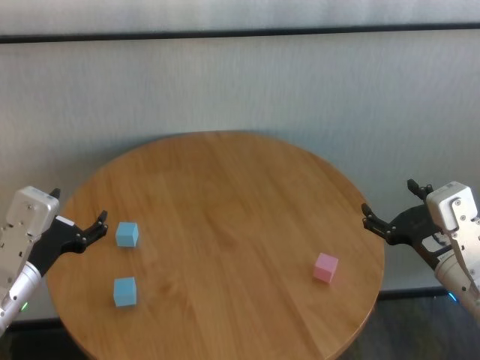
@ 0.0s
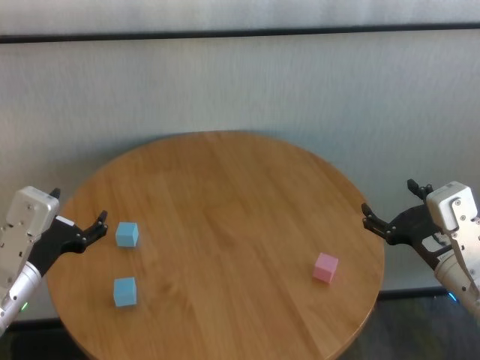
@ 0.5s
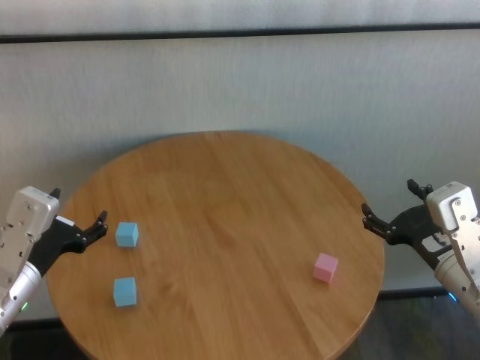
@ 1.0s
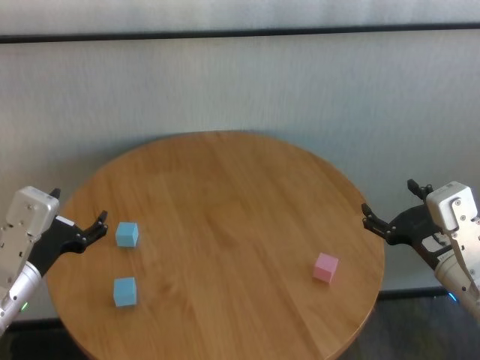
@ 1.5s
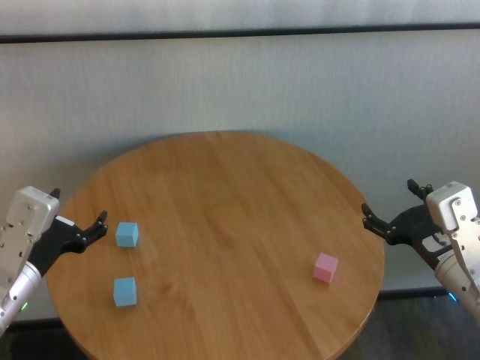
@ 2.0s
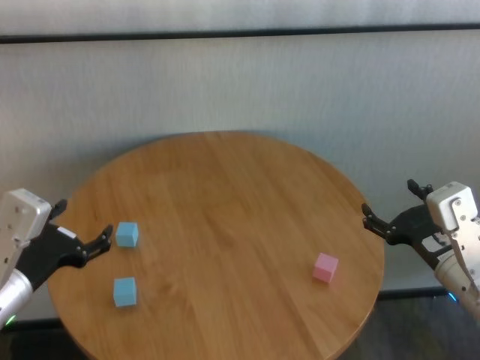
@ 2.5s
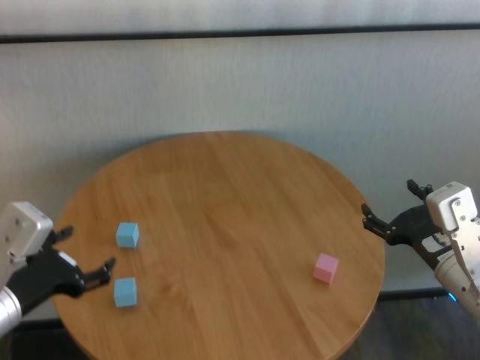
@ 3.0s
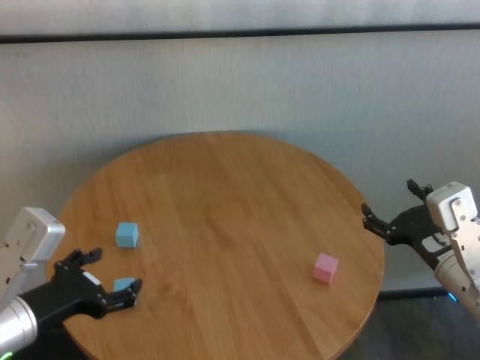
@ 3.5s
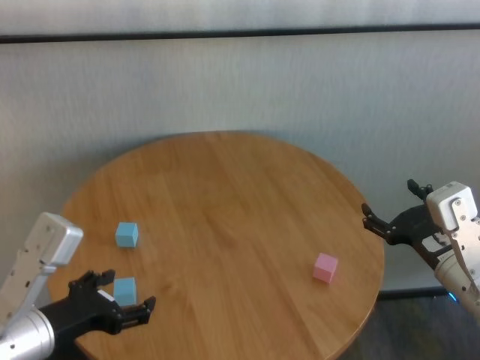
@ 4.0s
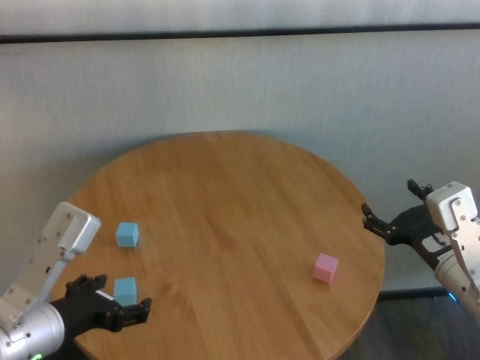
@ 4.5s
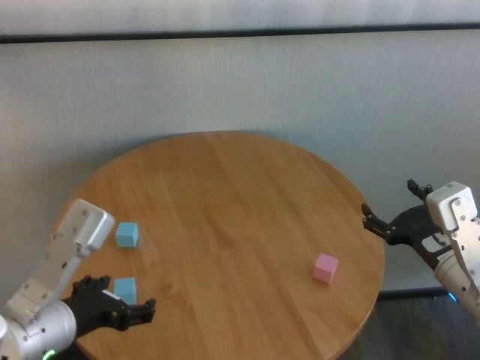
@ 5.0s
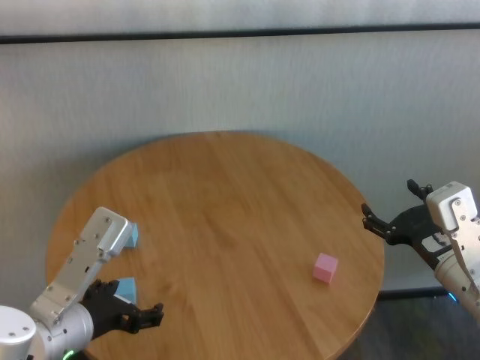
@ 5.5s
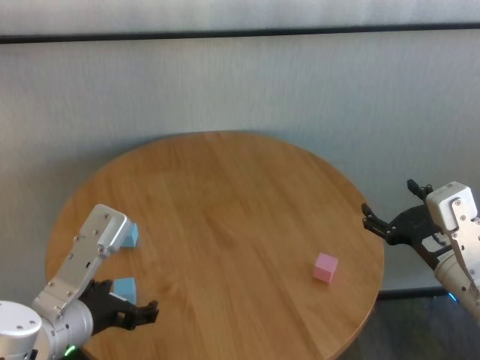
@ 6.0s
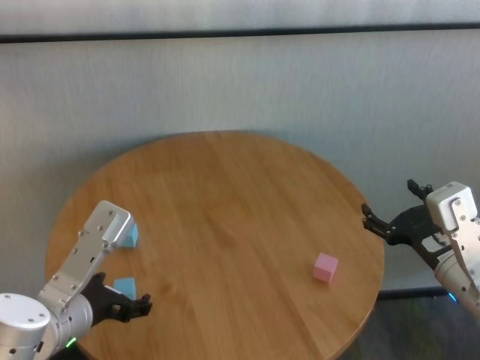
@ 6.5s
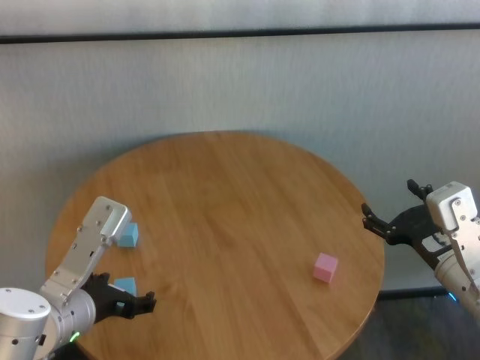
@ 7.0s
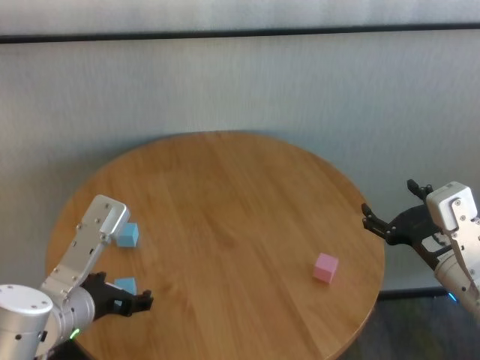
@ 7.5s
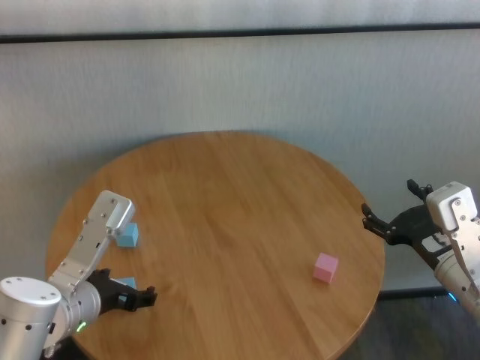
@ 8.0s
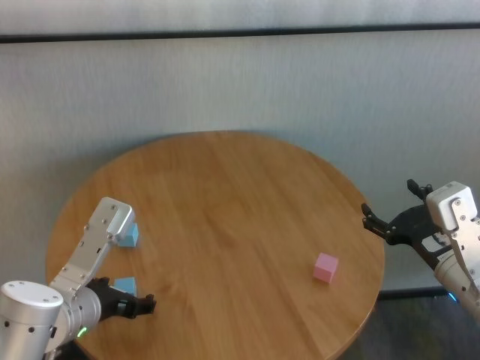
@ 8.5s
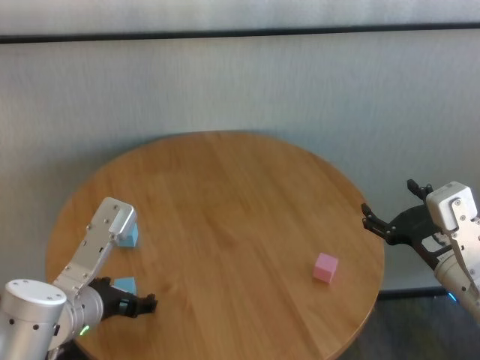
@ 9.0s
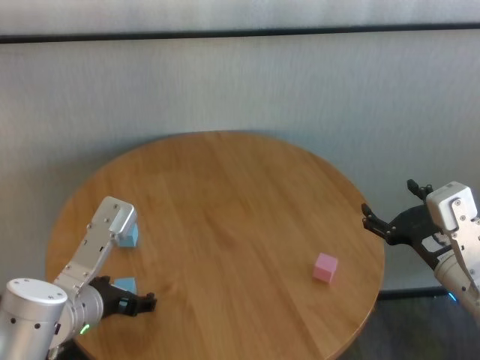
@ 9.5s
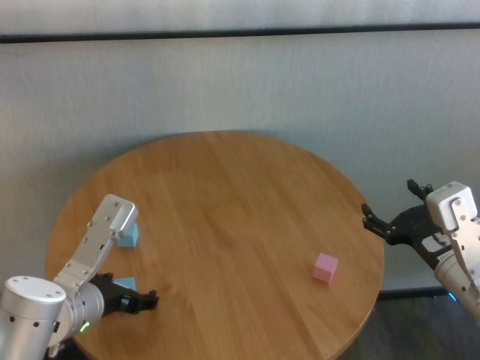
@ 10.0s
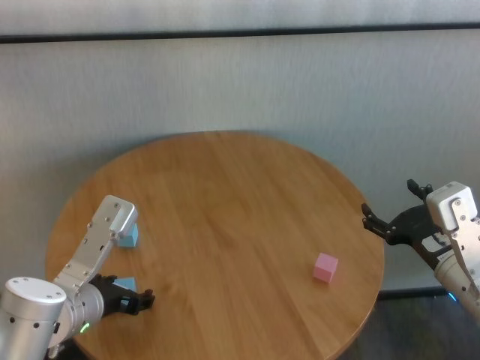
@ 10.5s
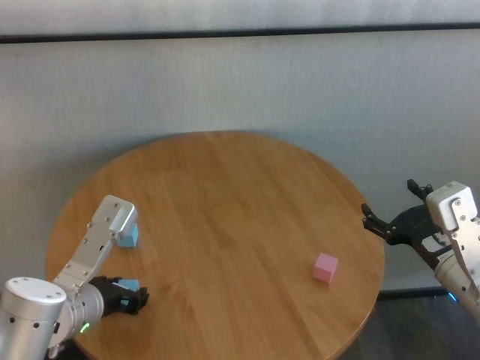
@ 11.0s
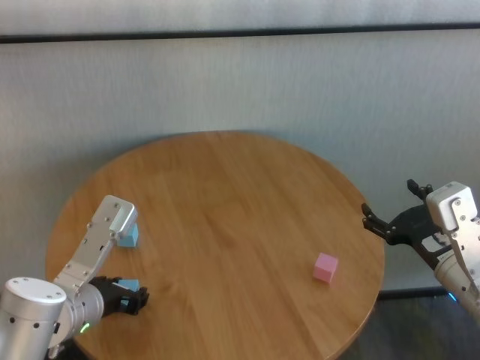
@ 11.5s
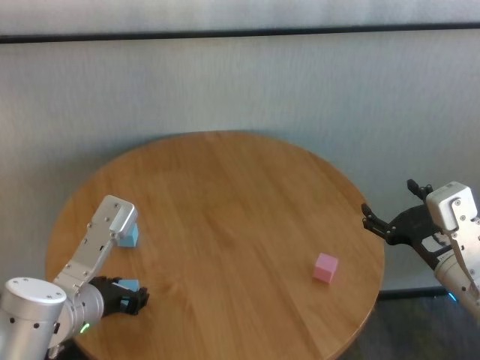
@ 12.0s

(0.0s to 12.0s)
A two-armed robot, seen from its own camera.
Task of the whole recording: stack building blocks on the table.
Step, 0.0s - 10.5s: Grasp the blue building block with left gripper.

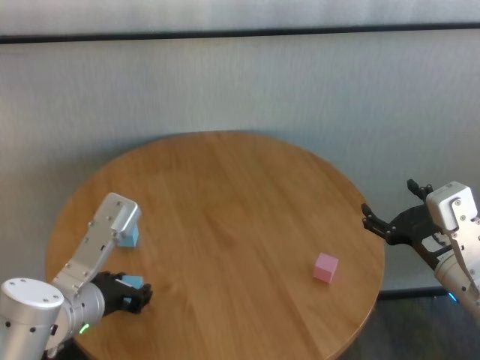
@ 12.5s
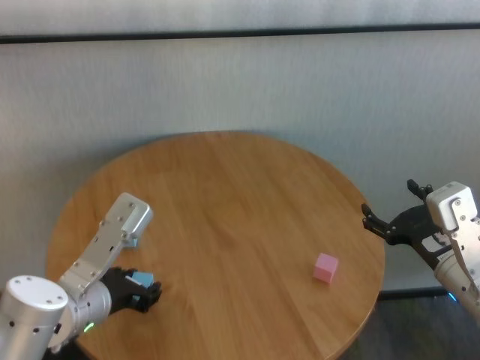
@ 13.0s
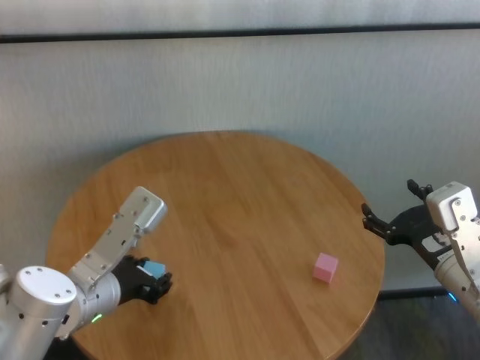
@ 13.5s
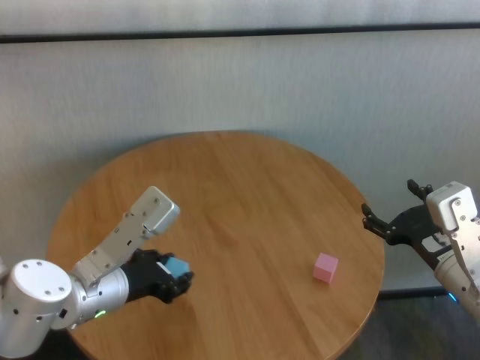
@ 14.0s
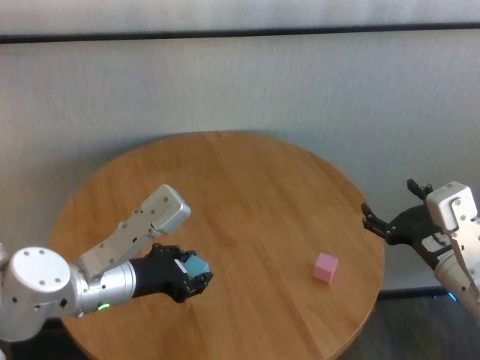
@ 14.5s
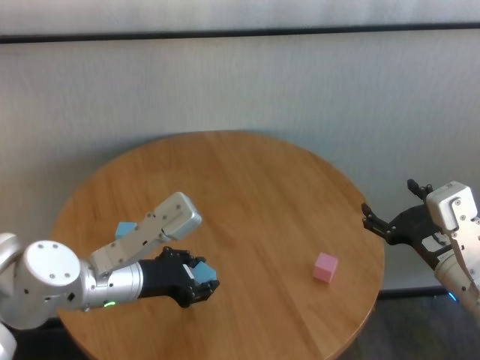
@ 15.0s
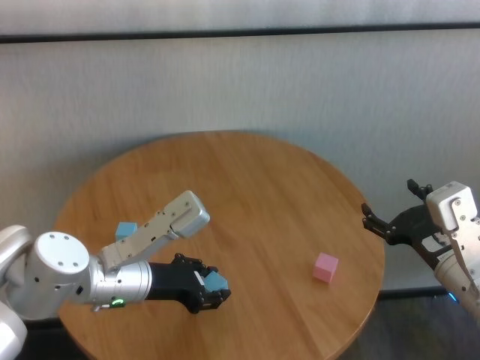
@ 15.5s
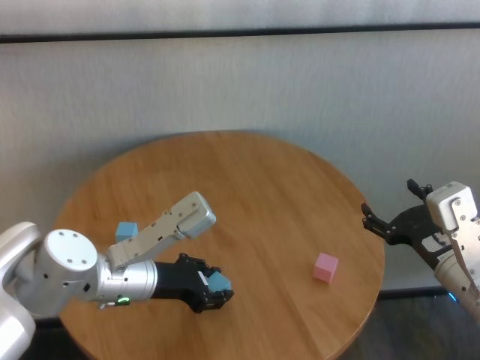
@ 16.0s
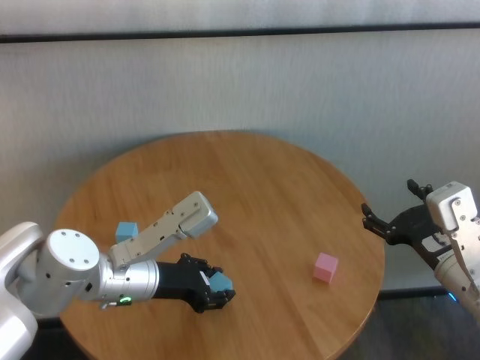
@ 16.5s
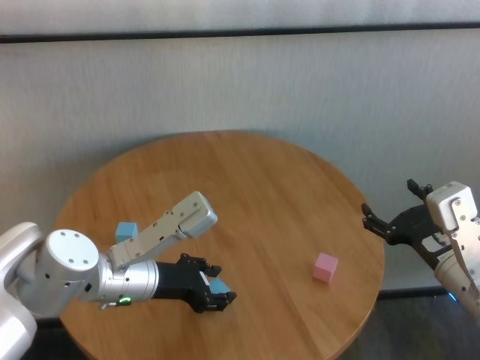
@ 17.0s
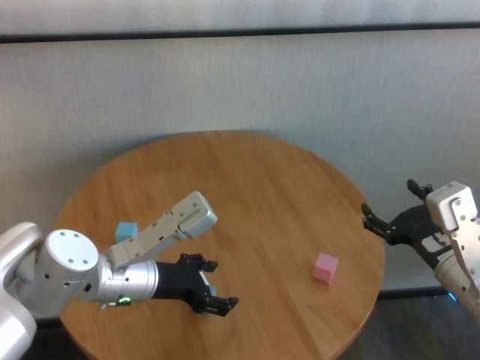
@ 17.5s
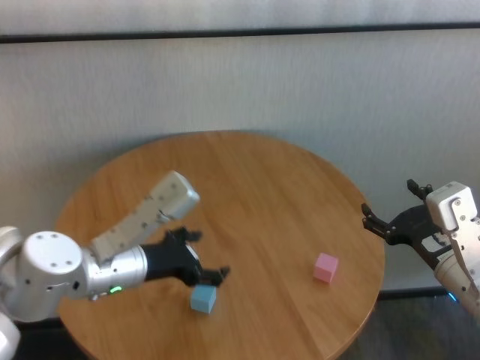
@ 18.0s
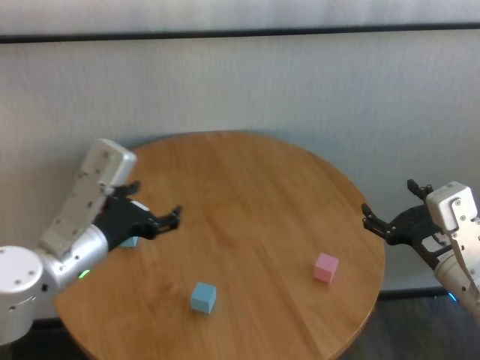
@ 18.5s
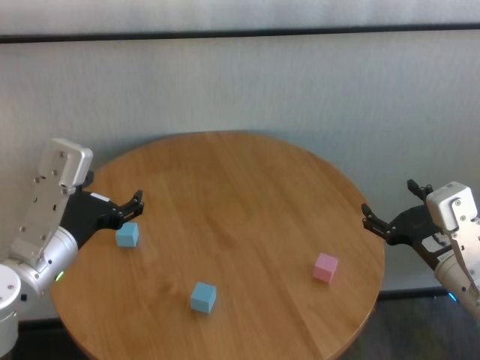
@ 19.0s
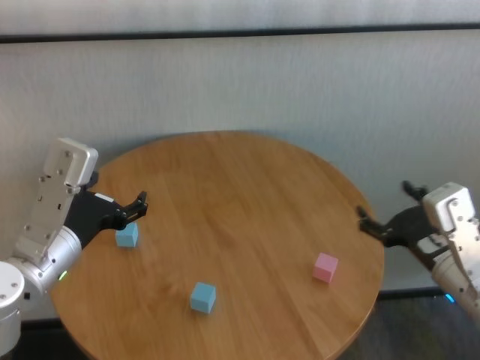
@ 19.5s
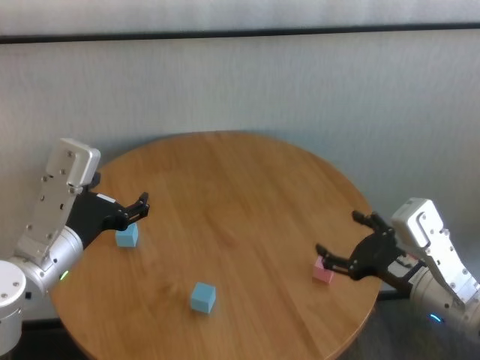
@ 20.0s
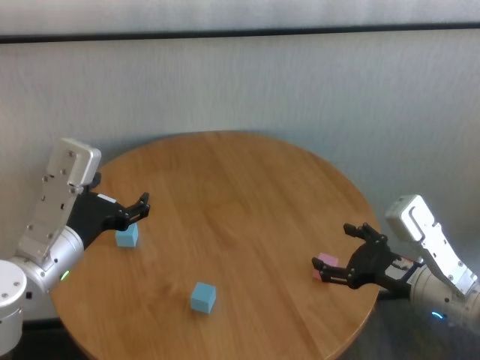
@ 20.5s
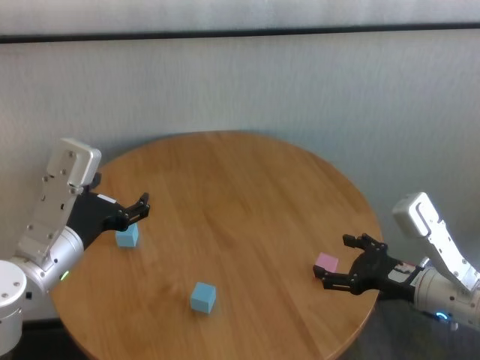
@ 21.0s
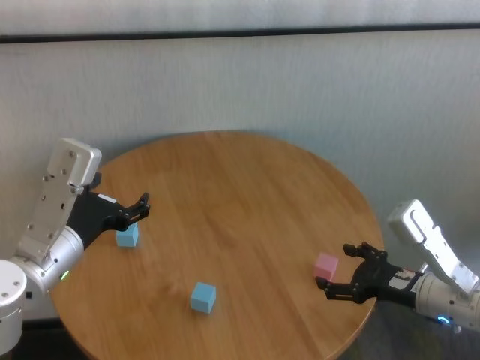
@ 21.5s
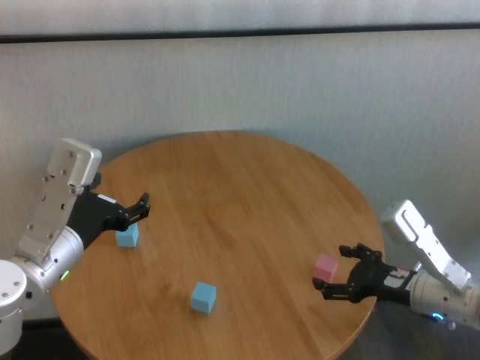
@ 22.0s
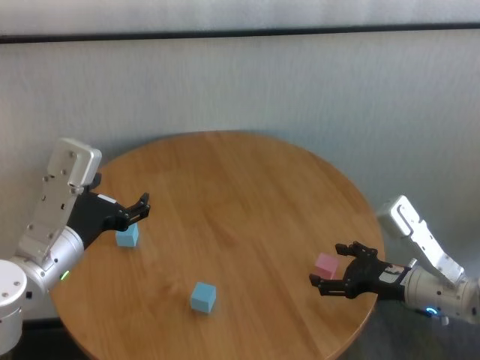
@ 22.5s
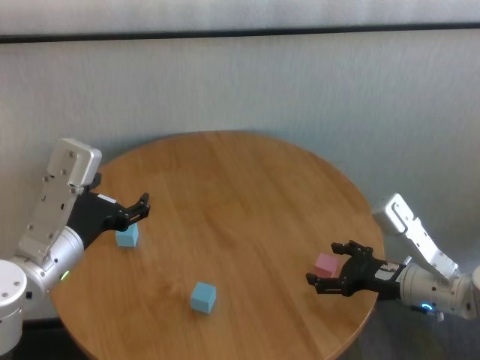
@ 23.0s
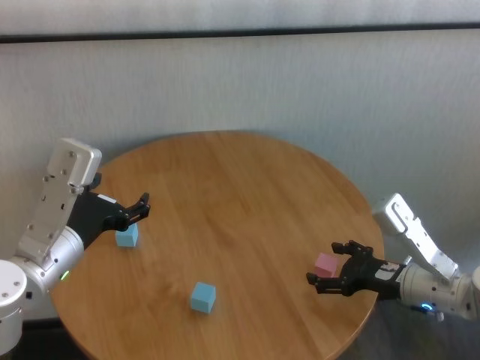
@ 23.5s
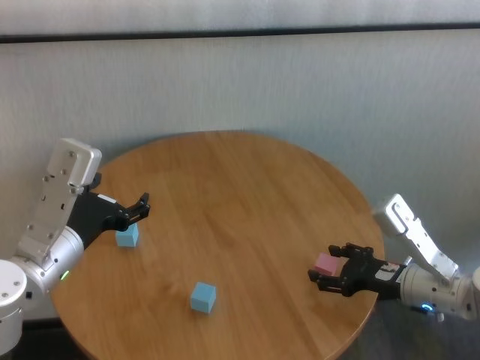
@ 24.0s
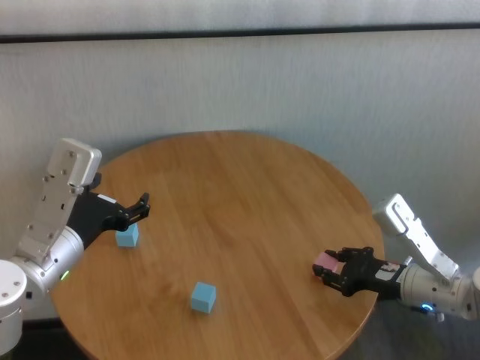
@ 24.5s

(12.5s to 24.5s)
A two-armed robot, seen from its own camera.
Task of the whole recording: stack building blocks on the table.
Step, 12.5s - 17.0s: Place the blue building block in the center of table with left gripper.
Step, 17.5s - 24.5s: Grasp the pink building block with right gripper.

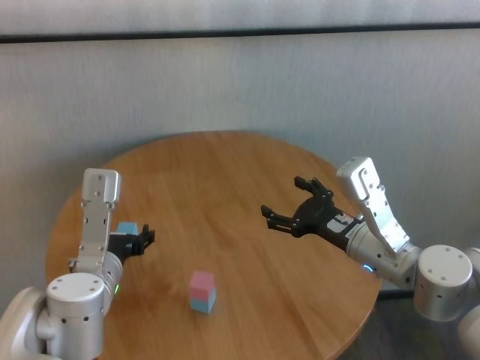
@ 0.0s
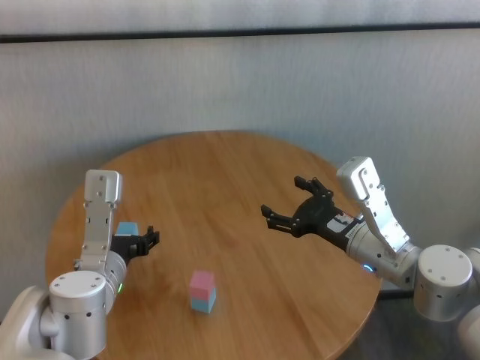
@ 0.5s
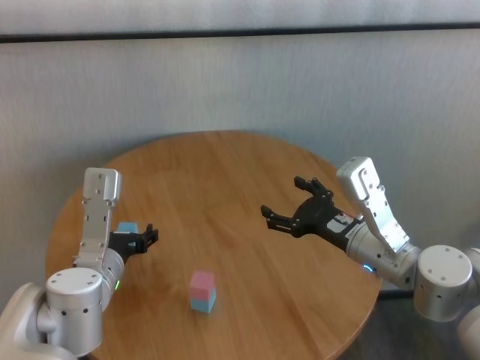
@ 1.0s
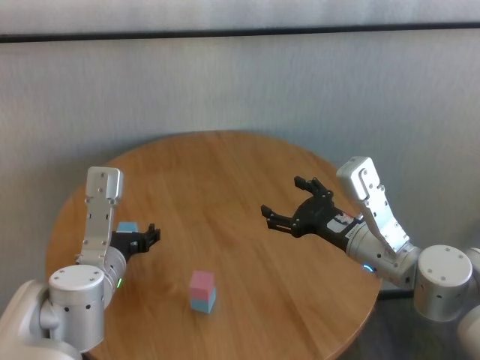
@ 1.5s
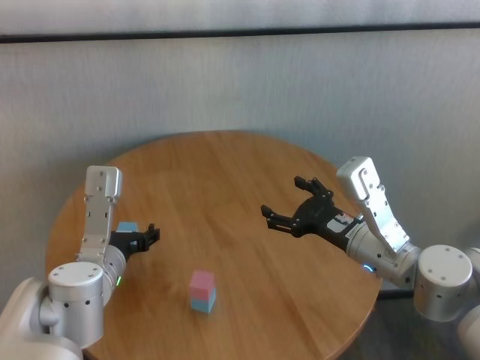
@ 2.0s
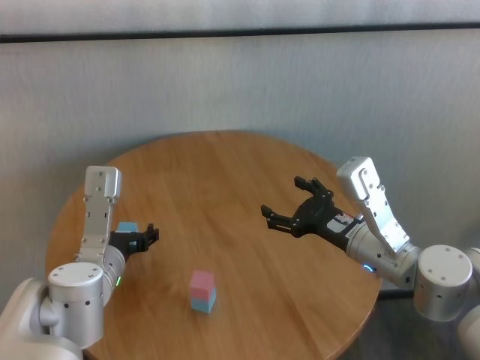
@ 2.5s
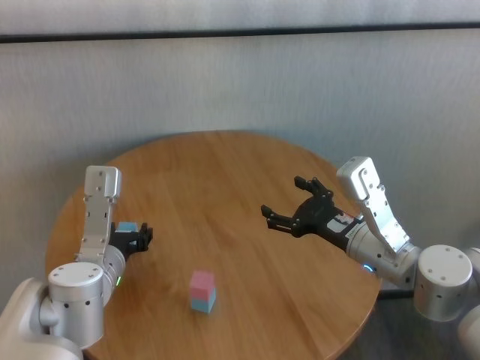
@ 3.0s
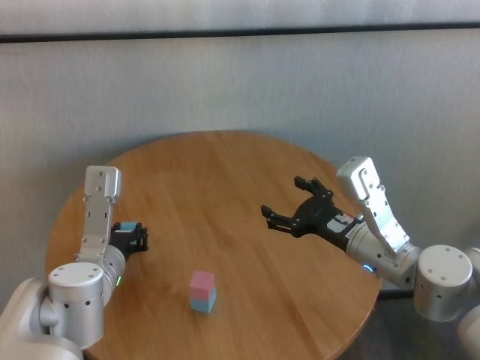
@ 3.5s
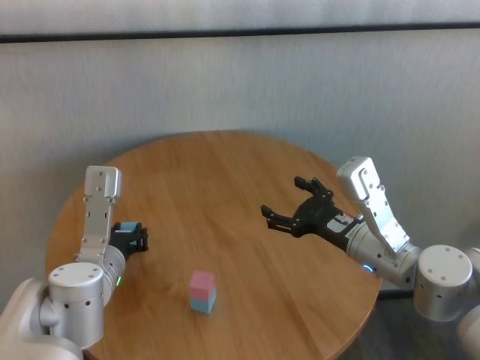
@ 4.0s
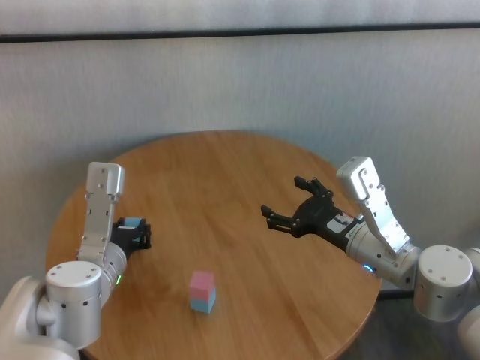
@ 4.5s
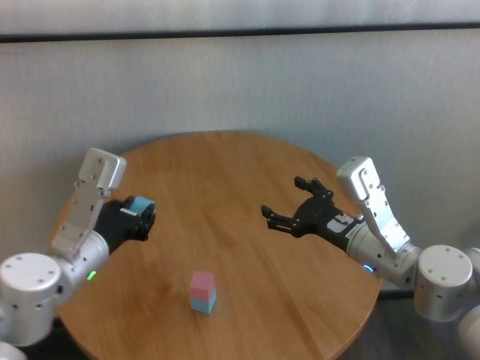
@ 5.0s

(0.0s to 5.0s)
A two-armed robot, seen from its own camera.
Task of the whole recording: stack building blocks on the table.
Step, 0.0s - 3.0s: Grasp the blue building block with left gripper.
